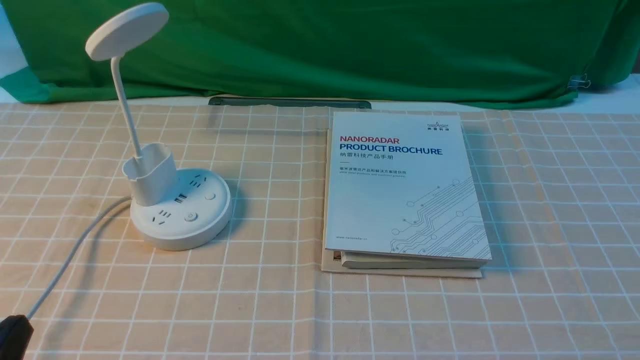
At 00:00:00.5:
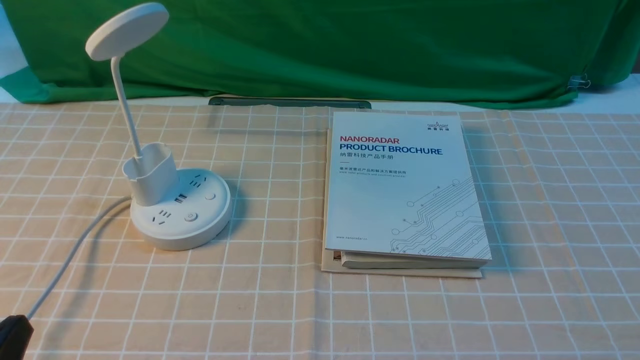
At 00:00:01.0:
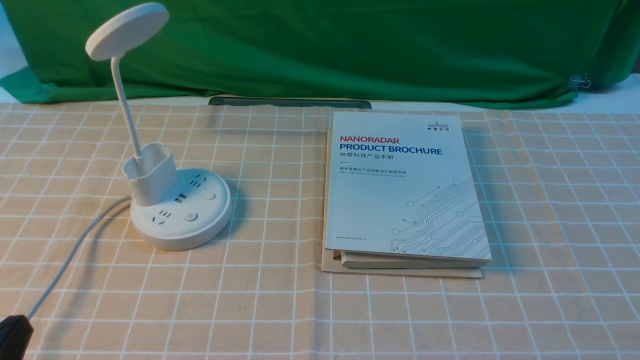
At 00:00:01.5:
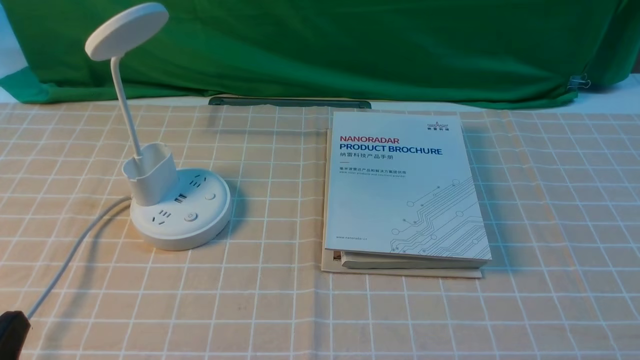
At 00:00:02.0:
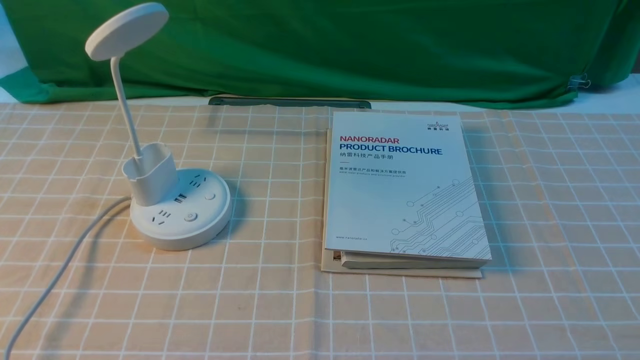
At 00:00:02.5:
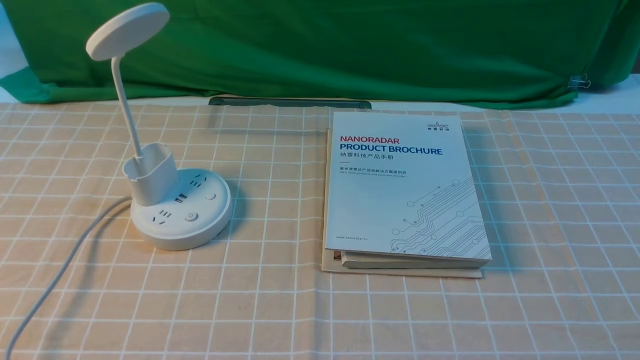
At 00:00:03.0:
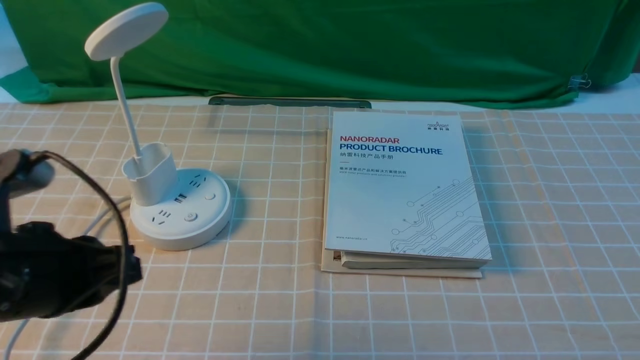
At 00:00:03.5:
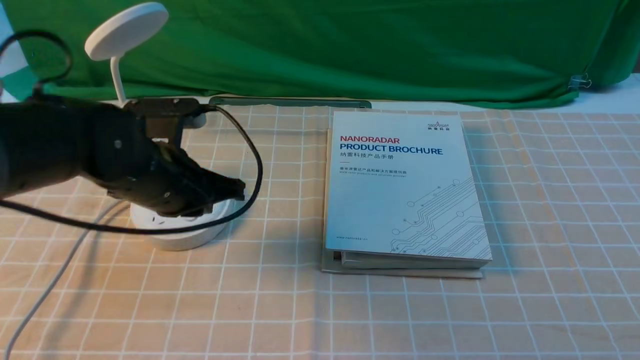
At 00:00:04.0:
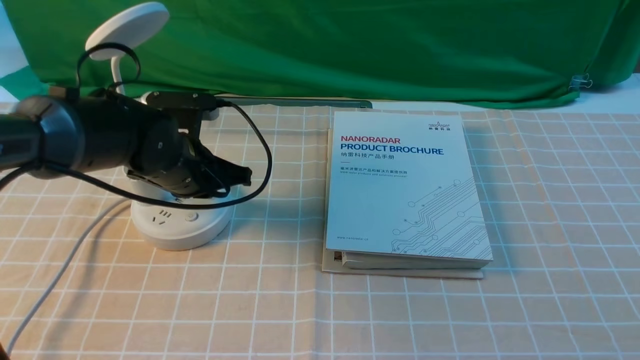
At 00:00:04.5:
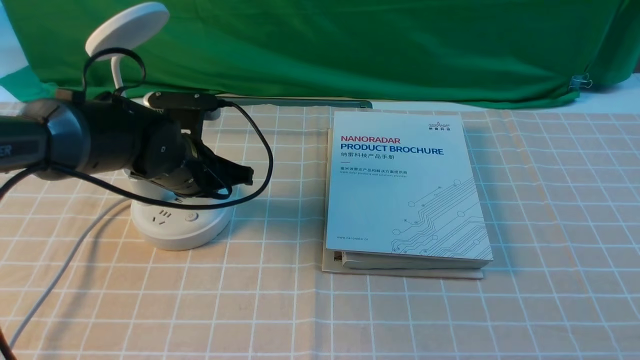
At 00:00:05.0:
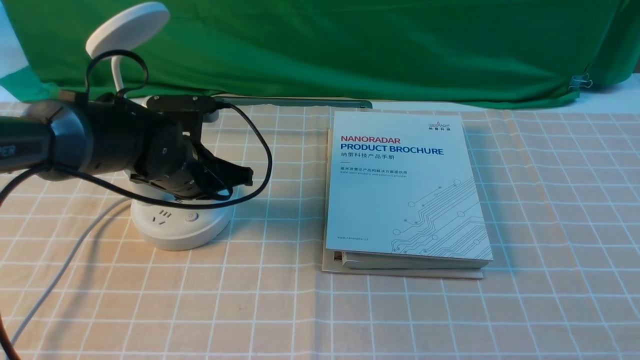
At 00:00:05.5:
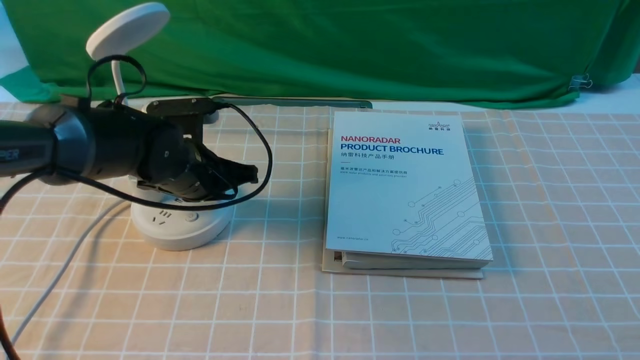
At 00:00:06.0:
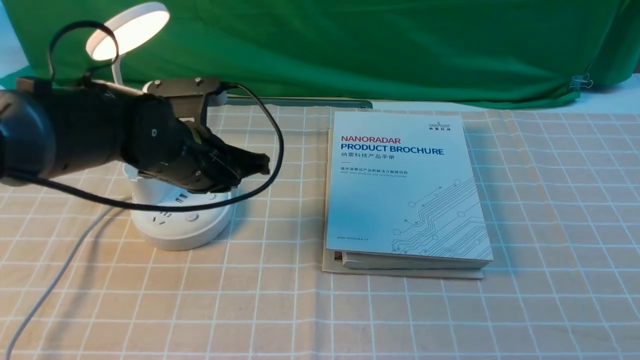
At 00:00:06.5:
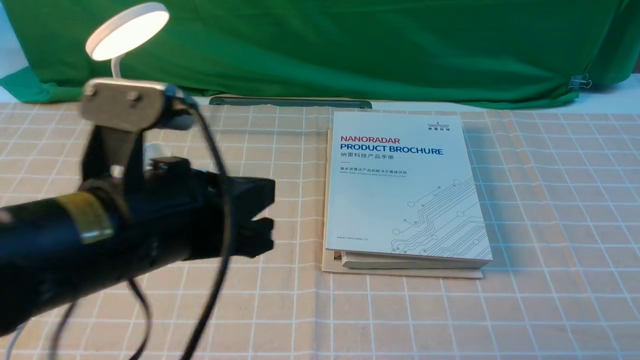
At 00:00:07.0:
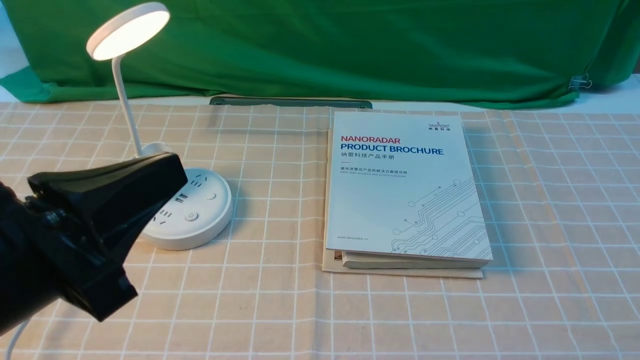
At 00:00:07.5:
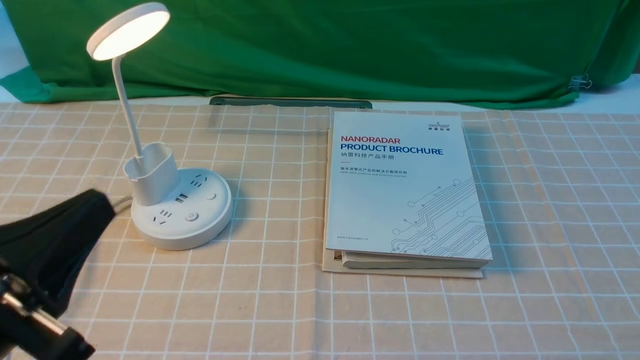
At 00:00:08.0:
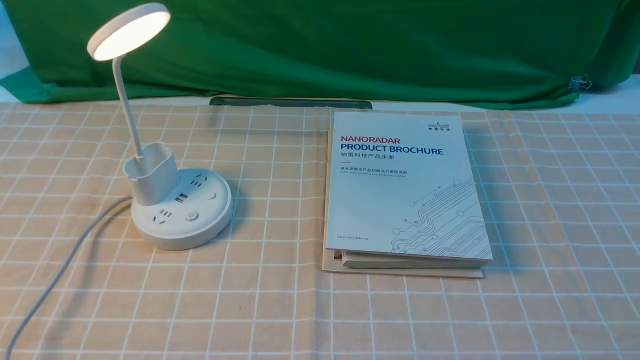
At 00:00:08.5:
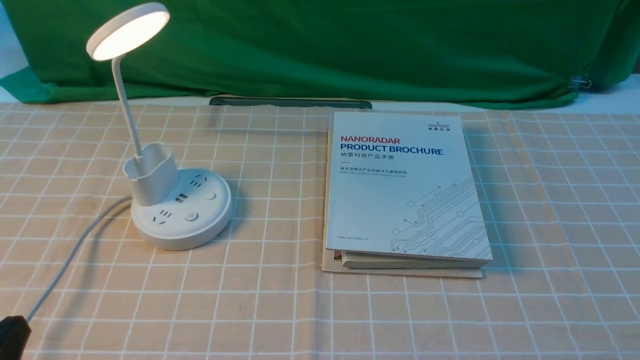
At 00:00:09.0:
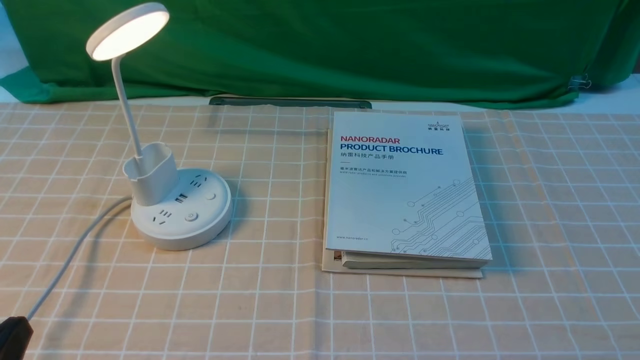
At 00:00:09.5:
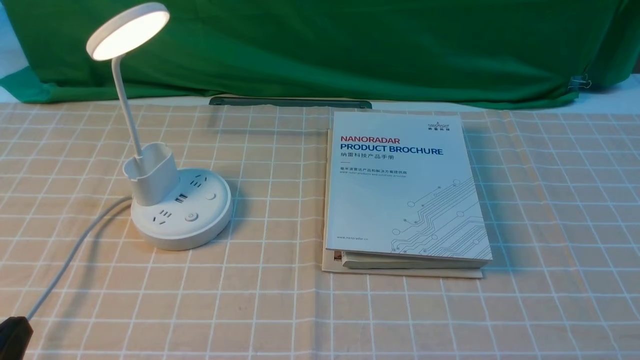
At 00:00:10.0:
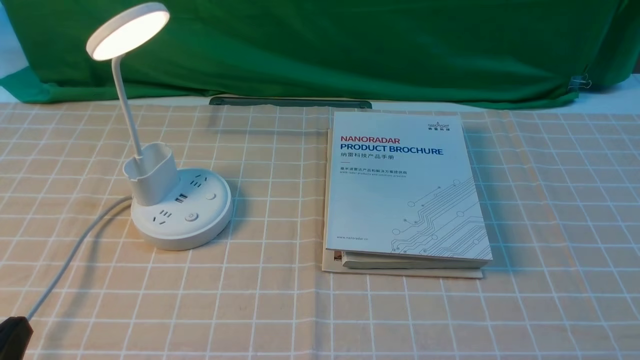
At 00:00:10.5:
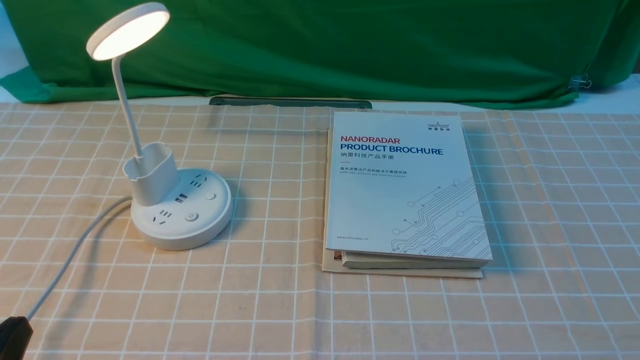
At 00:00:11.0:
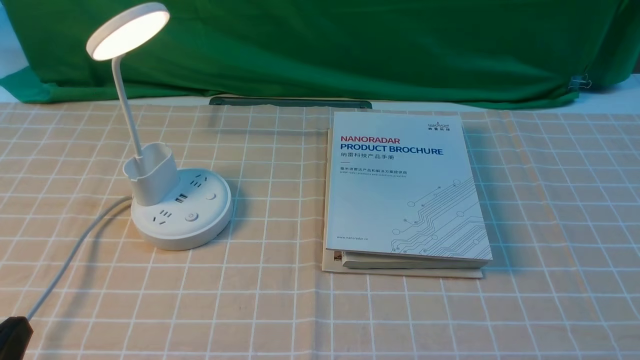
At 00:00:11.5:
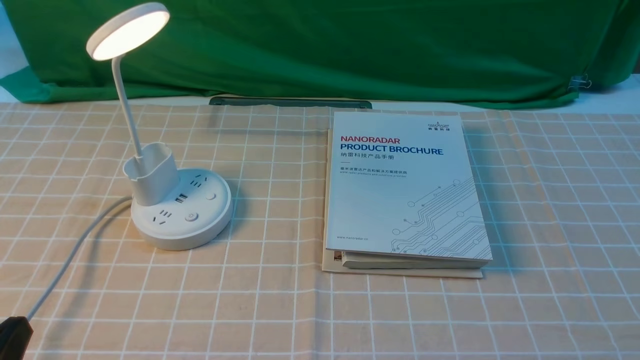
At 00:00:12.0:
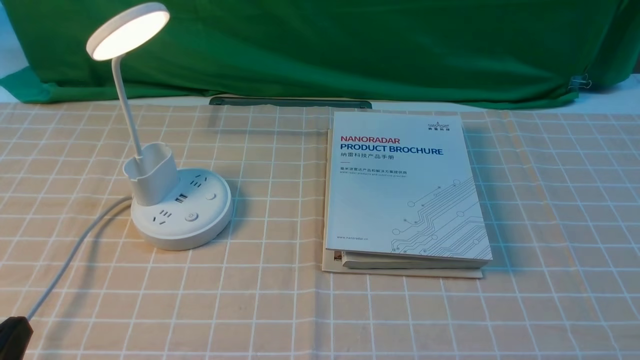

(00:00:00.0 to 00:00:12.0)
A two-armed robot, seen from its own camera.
Step, 00:00:00.0 - 00:00:06.0: use the left arm to press the button switch on the lamp holder.
00:00:02.0 - 00:00:04.0: The left gripper travels forward by about 35 cm.
00:00:04.0 - 00:00:06.0: The left gripper shifts by some 5 cm.
00:00:06.0 - 00:00:08.0: The left gripper is displaced backward and to the left by about 30 cm.
00:00:10.0 - 00:00:12.0: Neither gripper changes place.

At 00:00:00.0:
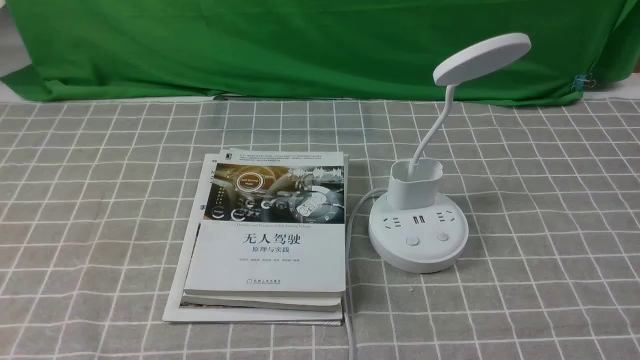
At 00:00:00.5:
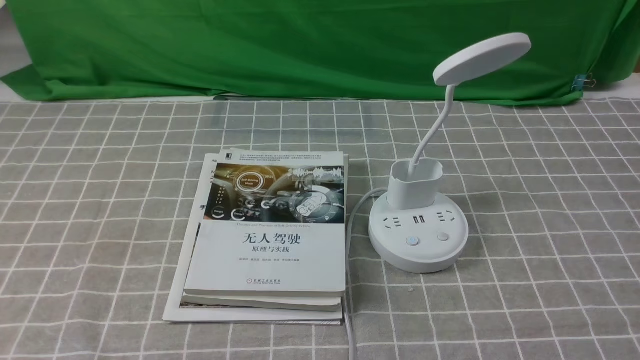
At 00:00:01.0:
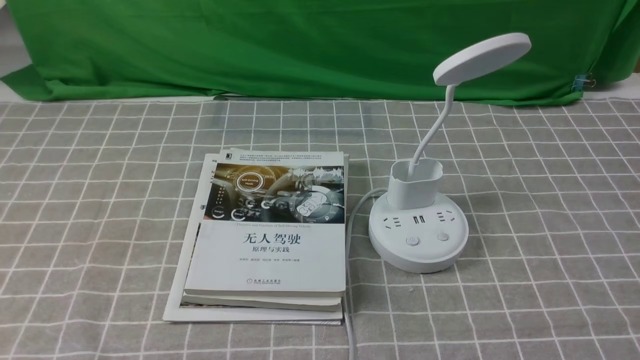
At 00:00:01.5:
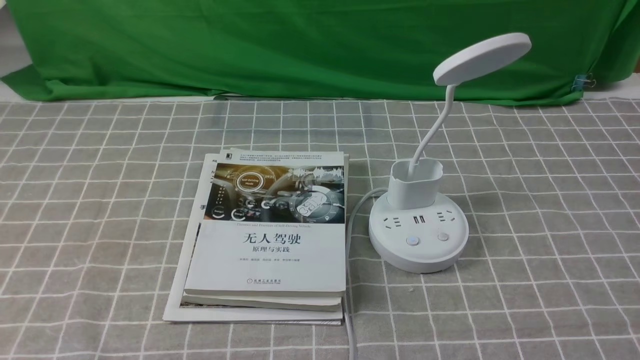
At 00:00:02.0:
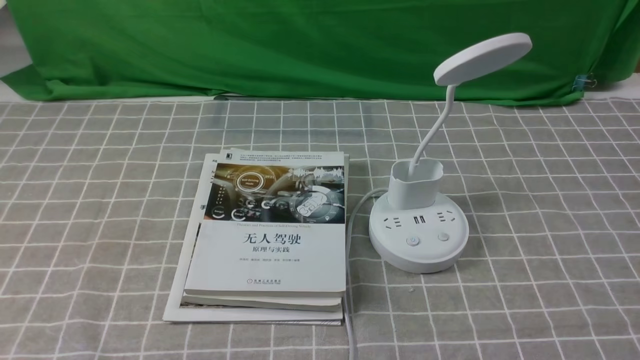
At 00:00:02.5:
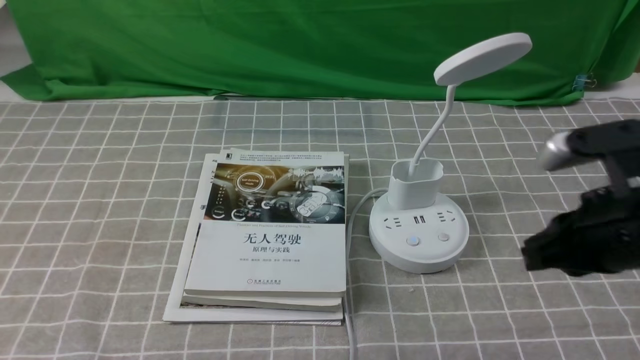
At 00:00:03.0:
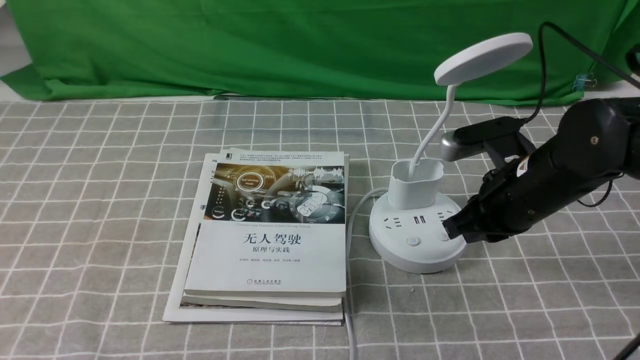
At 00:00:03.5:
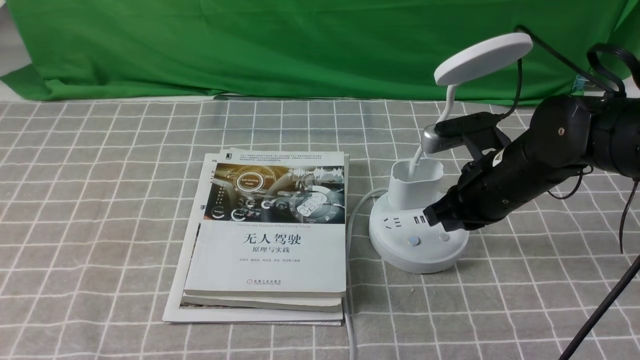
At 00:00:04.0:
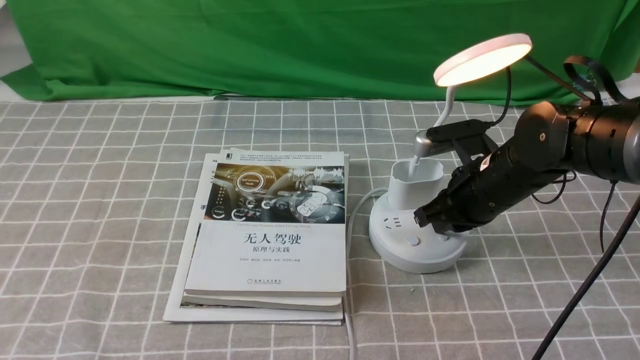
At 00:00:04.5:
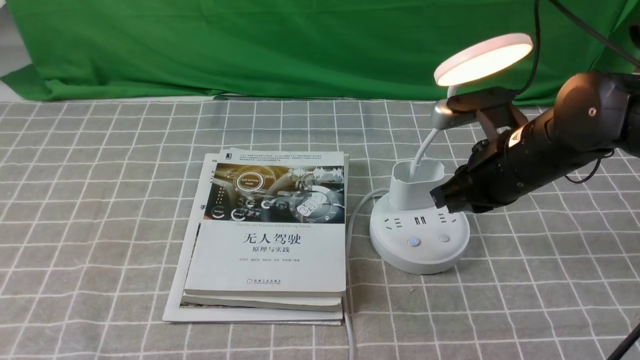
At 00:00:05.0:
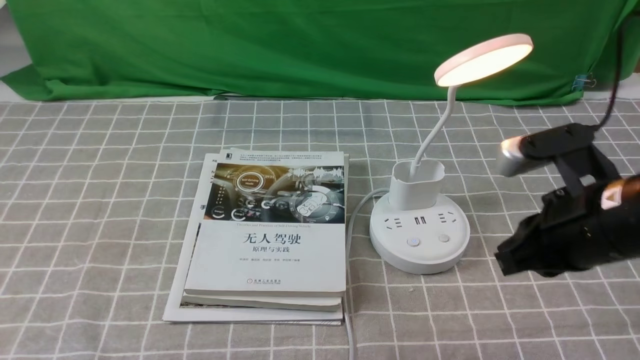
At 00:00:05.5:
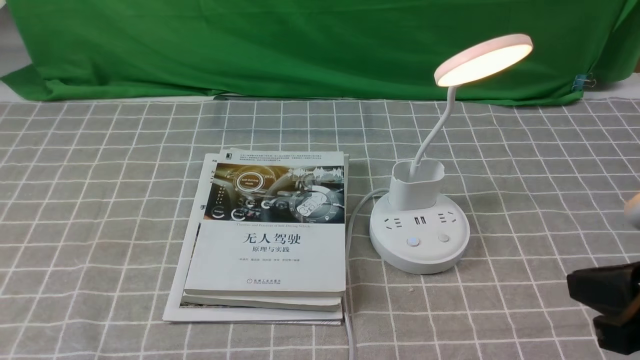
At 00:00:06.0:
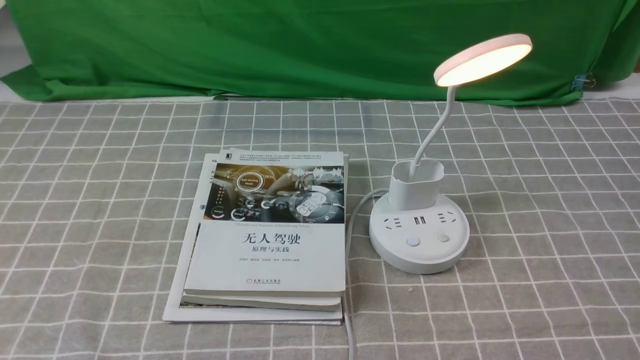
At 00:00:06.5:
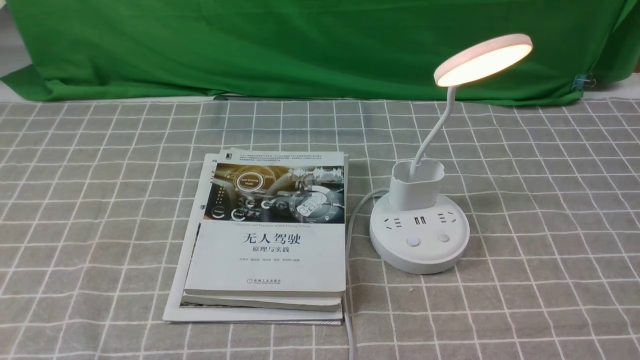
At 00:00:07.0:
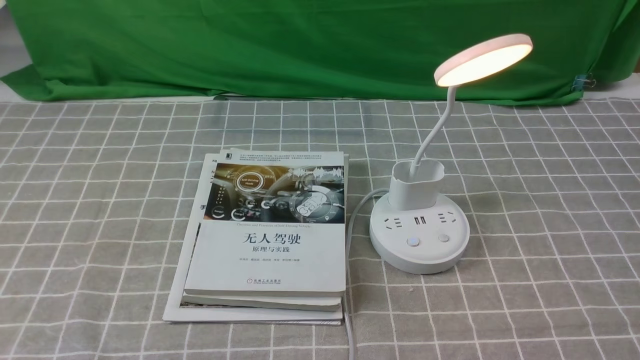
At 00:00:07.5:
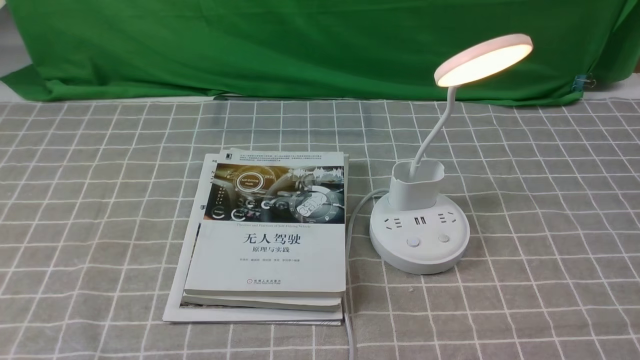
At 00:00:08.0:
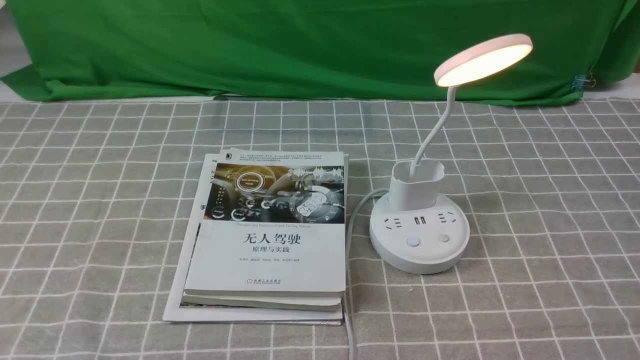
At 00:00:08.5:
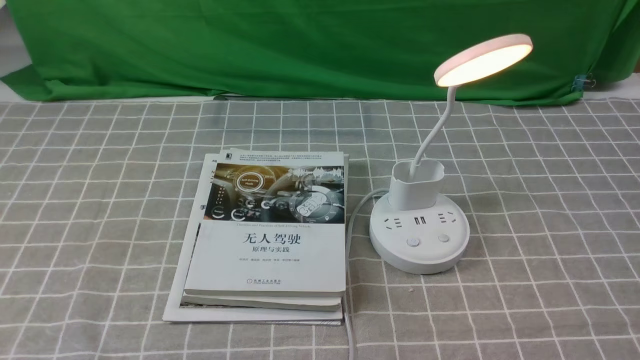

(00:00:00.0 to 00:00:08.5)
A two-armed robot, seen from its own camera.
Step, 00:00:00.0 - 00:00:04.0: use the right arm to press the button switch on the lamp holder.
00:00:02.0 - 00:00:04.0: The right gripper heads forward and to the left, covering approximately 30 cm, and closes up.
00:00:04.0 - 00:00:06.5: The right gripper travels backward and to the right by approximately 30 cm.
